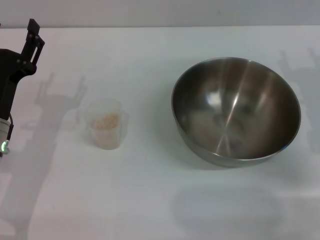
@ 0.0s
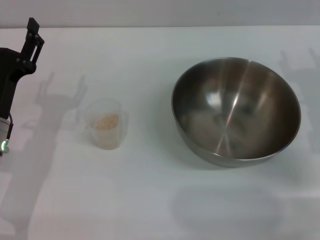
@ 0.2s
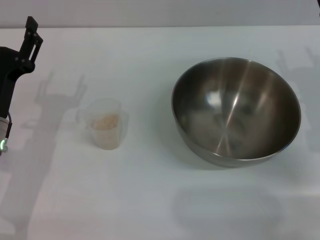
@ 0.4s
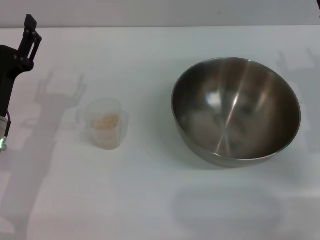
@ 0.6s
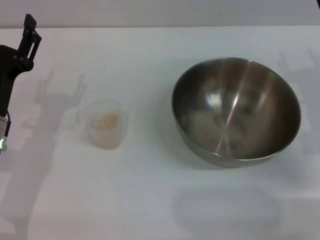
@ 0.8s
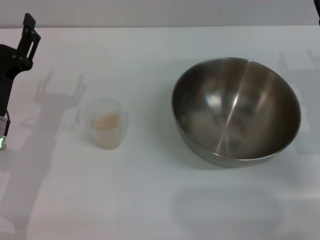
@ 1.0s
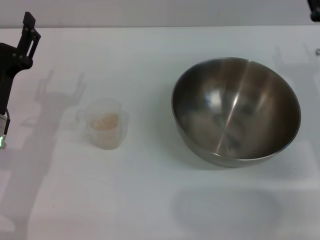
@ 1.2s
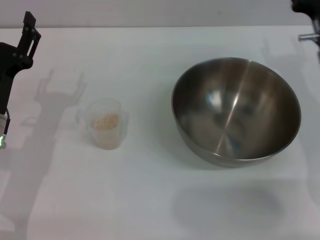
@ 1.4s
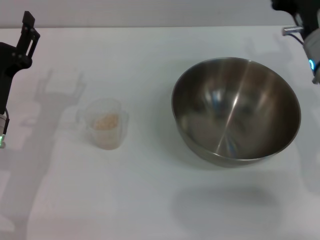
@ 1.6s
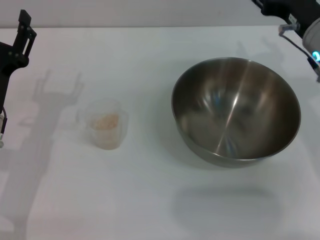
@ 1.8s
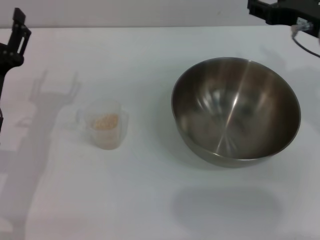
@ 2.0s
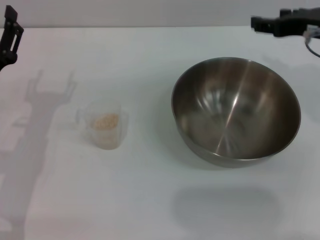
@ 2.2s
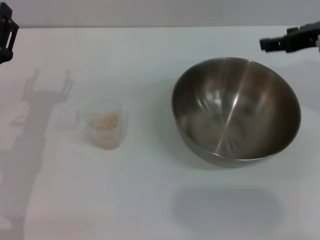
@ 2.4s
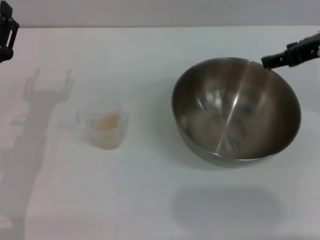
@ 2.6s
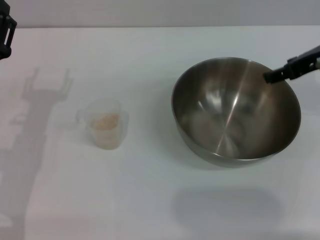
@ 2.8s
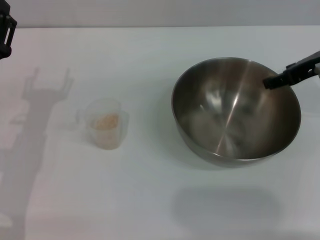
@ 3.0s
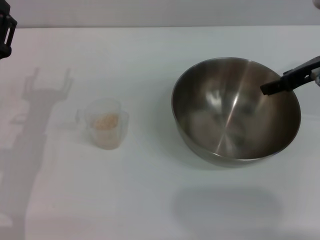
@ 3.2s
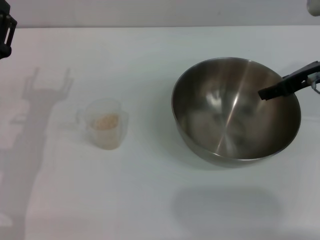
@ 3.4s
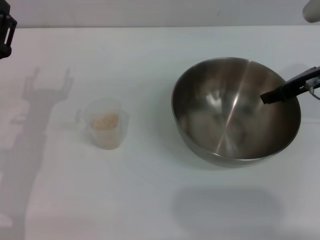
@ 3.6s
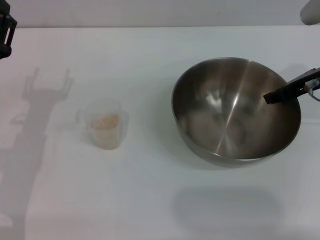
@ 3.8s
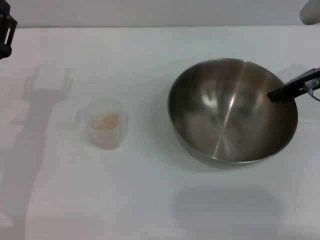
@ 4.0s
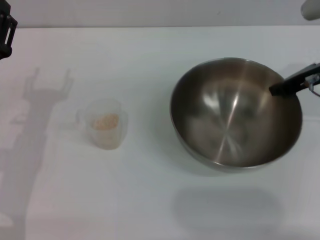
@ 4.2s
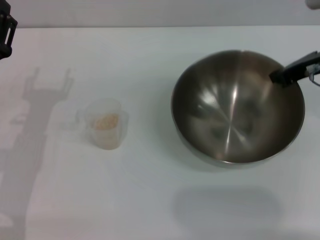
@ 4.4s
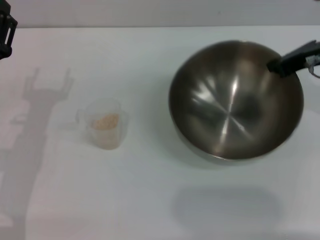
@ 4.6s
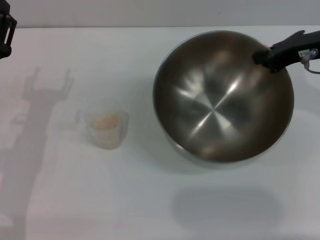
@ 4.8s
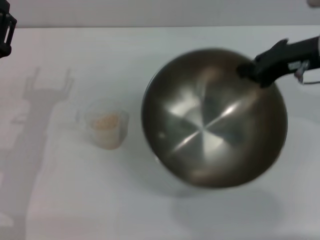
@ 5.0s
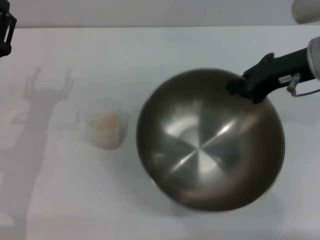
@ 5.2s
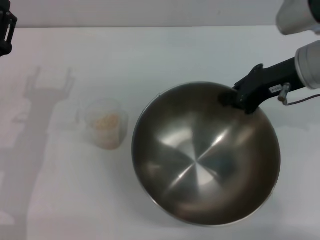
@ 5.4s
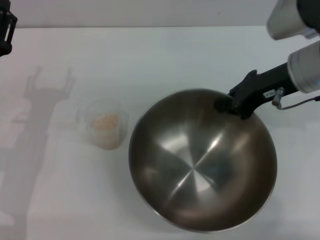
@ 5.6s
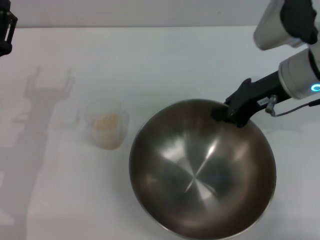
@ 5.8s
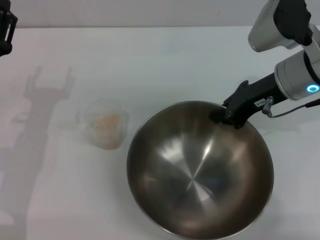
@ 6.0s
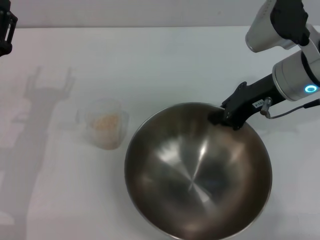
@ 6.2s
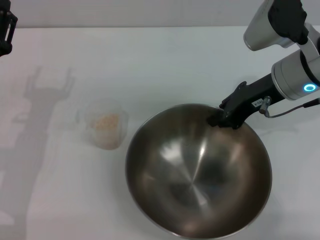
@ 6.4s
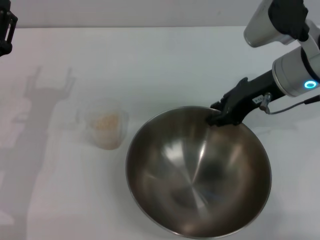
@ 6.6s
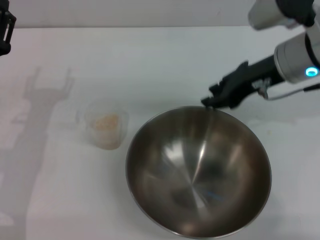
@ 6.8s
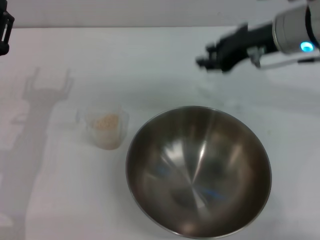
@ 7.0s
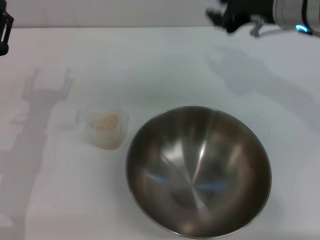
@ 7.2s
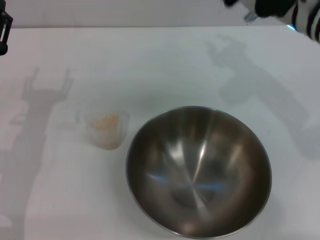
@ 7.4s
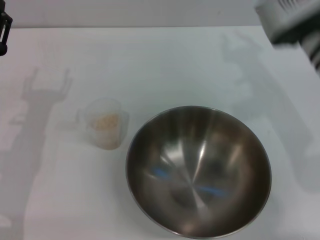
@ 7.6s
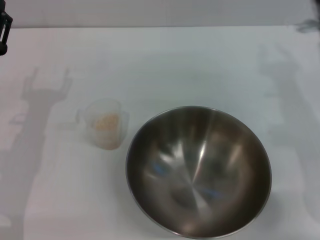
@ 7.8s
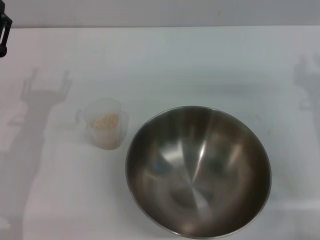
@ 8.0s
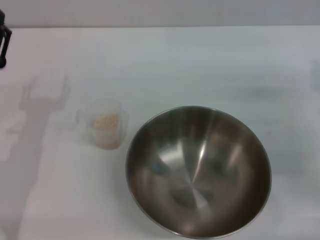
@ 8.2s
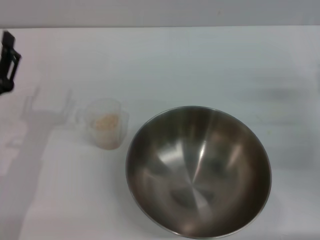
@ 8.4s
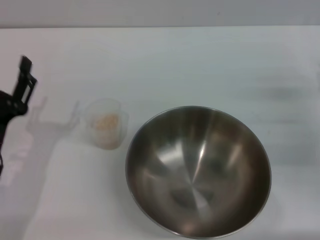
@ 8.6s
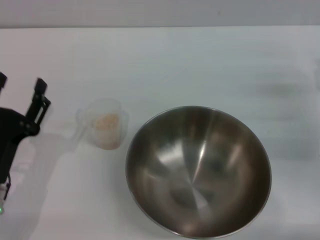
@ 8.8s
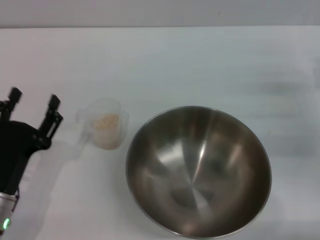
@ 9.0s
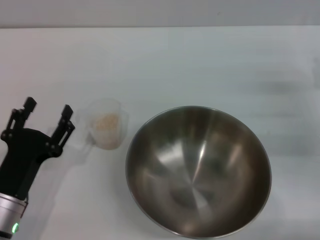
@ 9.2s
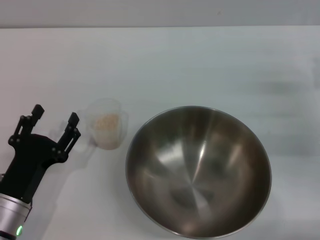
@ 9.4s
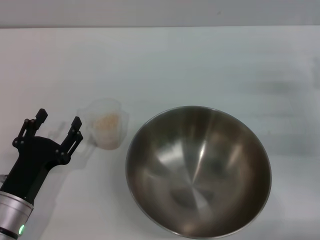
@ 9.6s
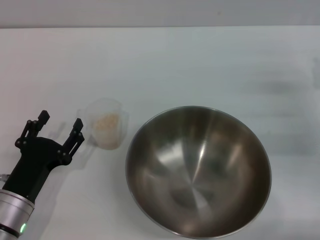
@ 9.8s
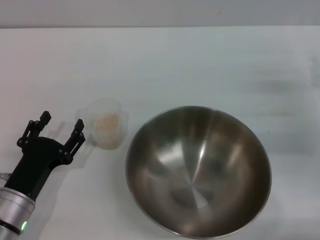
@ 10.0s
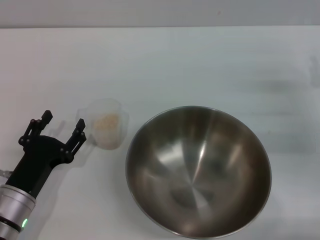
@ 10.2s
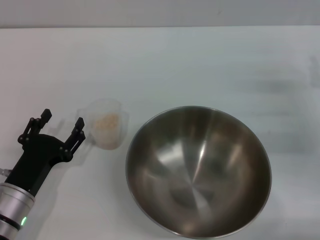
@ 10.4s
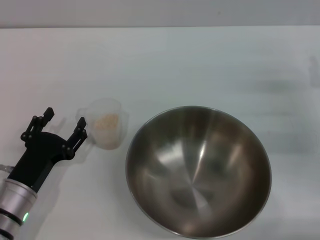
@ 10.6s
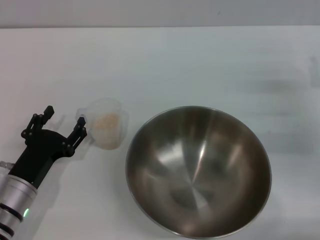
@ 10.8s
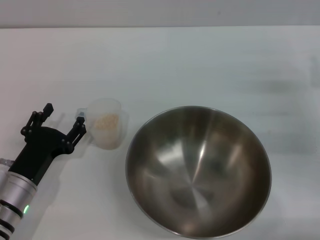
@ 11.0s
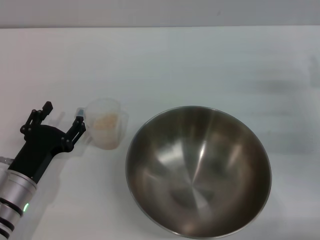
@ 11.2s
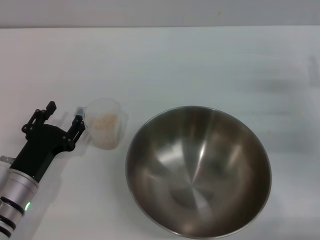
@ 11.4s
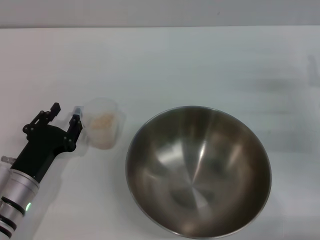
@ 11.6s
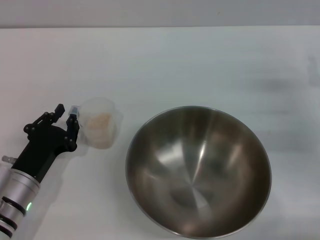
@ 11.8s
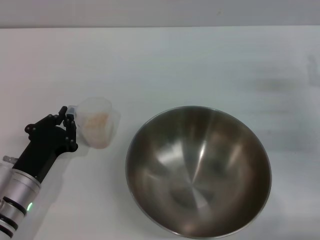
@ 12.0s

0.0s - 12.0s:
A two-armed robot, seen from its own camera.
Task of the whole recording: Place the bowl in the middle of the table with one hand and pour the rice from the grain cup into it with the other hand.
Step, 0.0s - 4.6s: Pick up the bowl with the right gripper.
Step, 4.8s - 6.8s: Place the bowl in the center of view with the right gripper.
0.0s - 1.6s: The right gripper is displaced to the left by approximately 5 cm.
1.6s - 3.0s: The right gripper is displaced upward by some 5 cm.
3.0s - 4.4s: The right gripper closes up.
4.4s - 6.0s: The right gripper moves to the left, about 5 cm.
6.0s - 7.6s: The right gripper opens its fingers.
7.6s - 9.0s: The right gripper shifts roughly 20 cm to the right and downward. The left gripper shifts some 10 cm backward and downward.
9.0s - 10.4s: The grippers make only small movements.
10.4s - 12.0s: The left gripper closes.

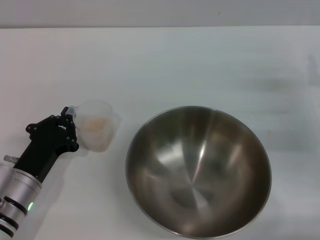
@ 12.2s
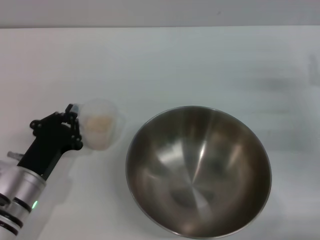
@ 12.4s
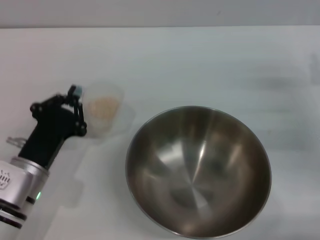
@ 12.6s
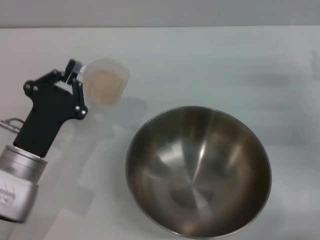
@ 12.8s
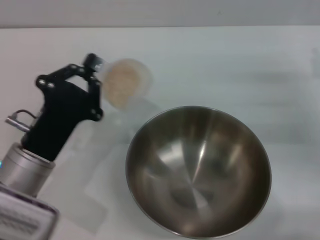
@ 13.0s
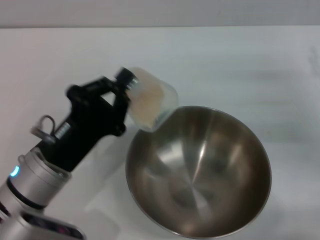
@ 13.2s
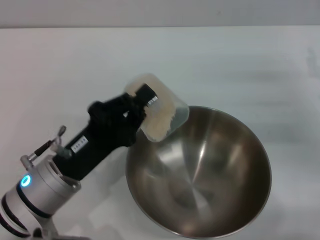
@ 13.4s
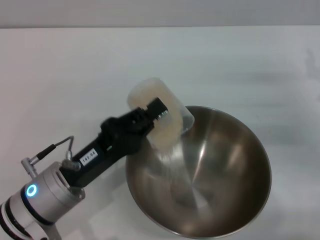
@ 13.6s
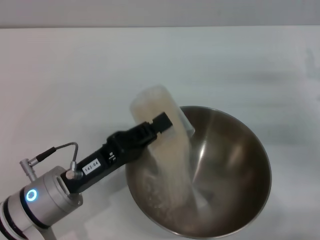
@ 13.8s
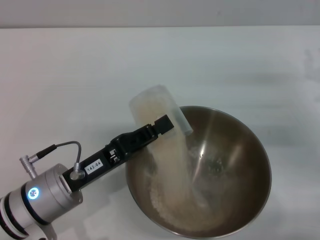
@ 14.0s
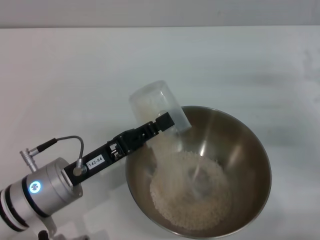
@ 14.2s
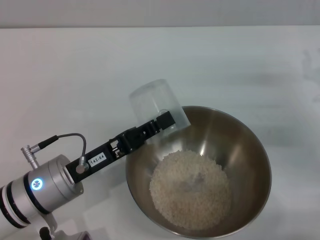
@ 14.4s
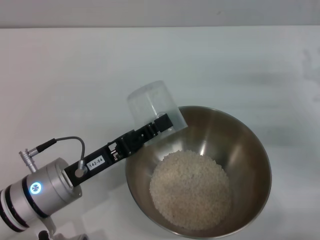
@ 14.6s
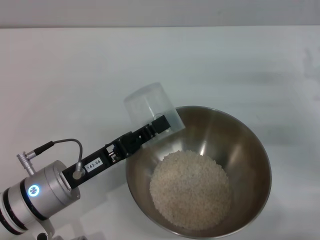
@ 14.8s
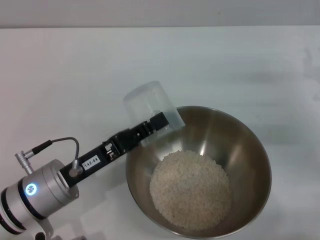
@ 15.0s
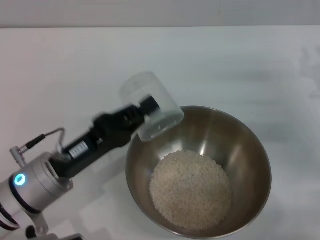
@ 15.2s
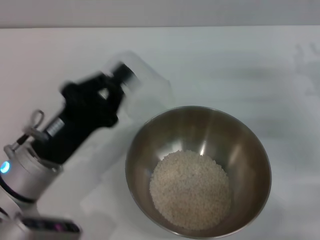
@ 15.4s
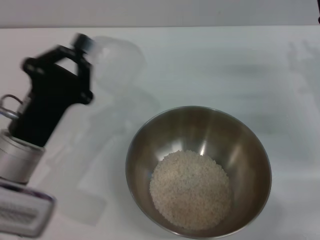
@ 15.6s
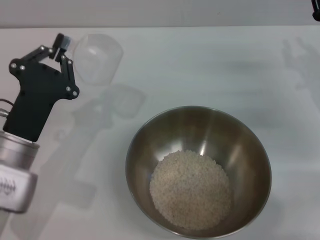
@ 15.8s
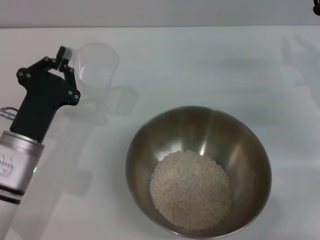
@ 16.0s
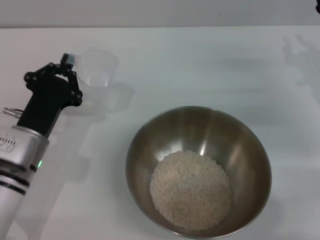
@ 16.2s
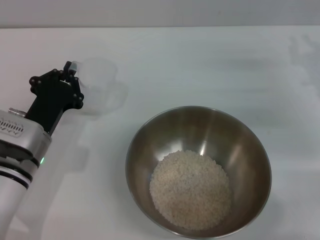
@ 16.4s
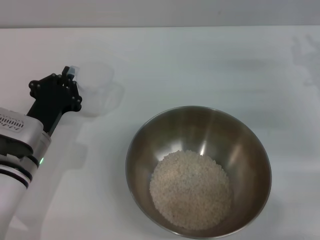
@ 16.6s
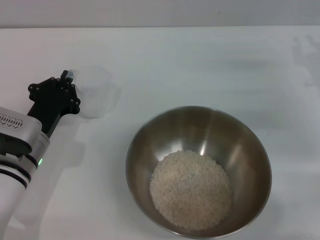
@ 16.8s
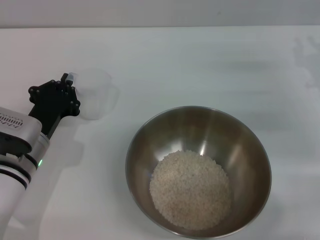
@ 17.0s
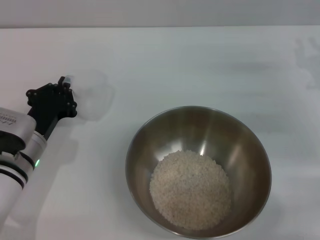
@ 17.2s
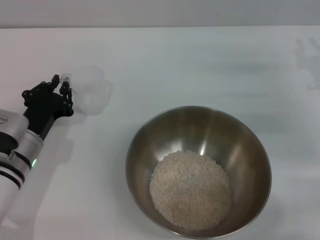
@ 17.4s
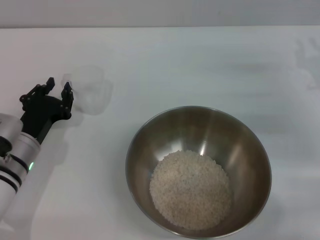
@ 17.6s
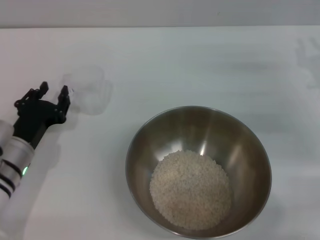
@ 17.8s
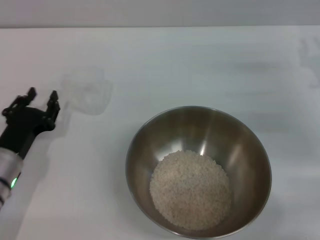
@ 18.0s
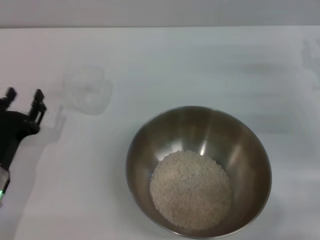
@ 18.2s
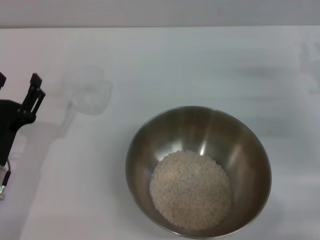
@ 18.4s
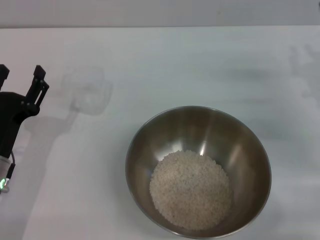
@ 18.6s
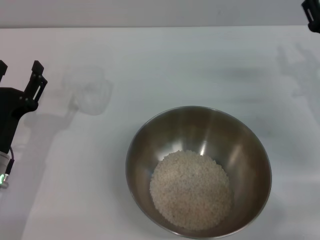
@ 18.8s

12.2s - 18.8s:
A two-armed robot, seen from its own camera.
Task of the whole recording: Place the bowl in the middle of the table with one hand and pour the rice from the grain cup into it with the other hand.
Step, 13.0s - 14.4s: Pour the rice from the cup into the bowl with the left gripper.
Step, 14.8s - 17.8s: Place the cup on the table with the left gripper.
12.2s - 13.8s: The left gripper is displaced to the right and upward by some 10 cm.
15.4s - 17.2s: The left gripper travels forward and downward by approximately 10 cm.
17.2s - 18.8s: The left gripper shifts by approximately 5 cm, and opens.

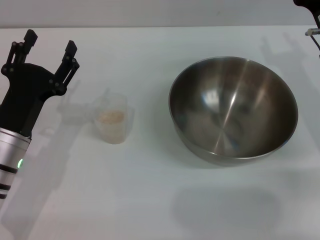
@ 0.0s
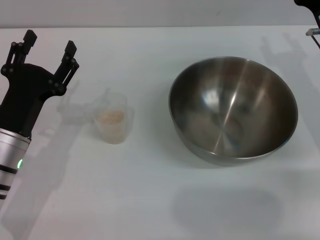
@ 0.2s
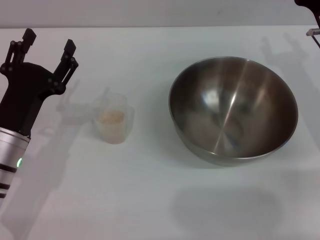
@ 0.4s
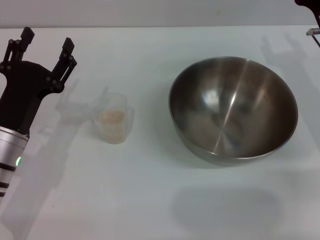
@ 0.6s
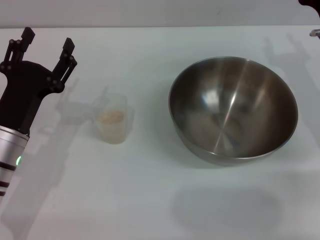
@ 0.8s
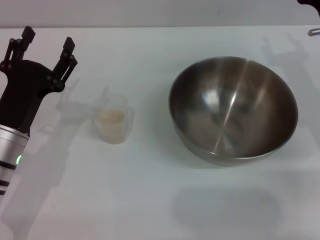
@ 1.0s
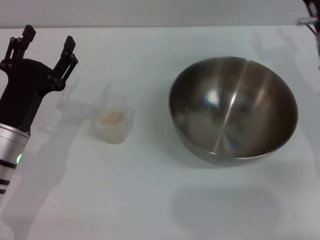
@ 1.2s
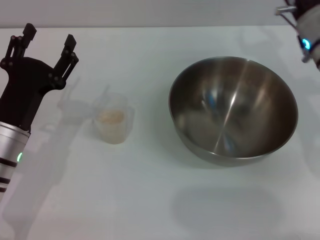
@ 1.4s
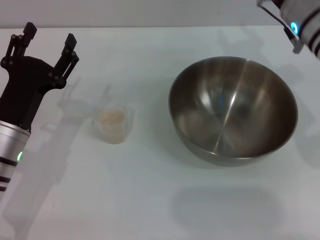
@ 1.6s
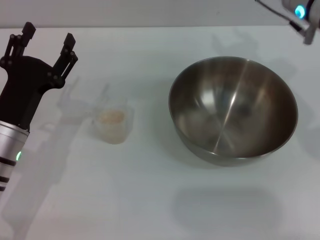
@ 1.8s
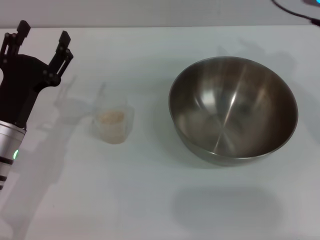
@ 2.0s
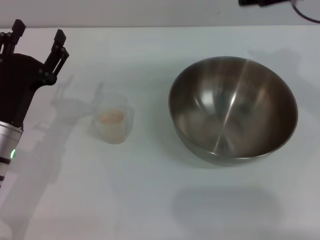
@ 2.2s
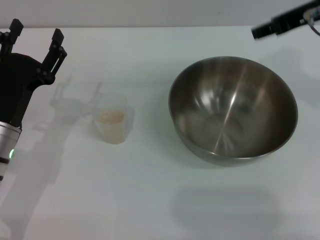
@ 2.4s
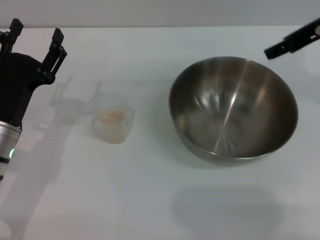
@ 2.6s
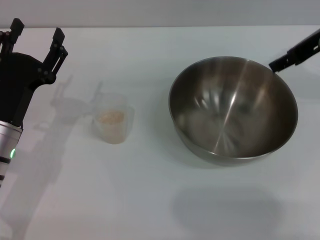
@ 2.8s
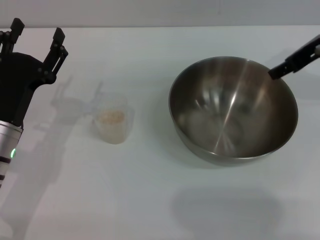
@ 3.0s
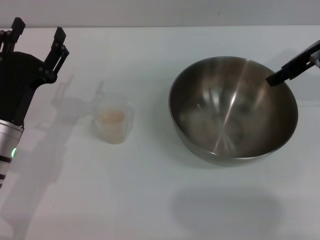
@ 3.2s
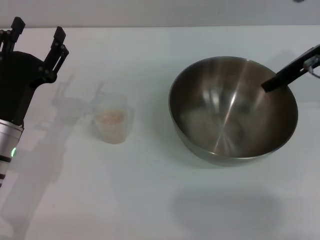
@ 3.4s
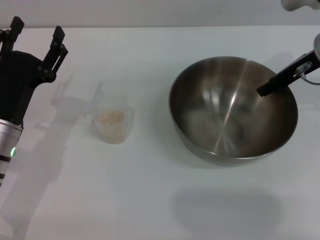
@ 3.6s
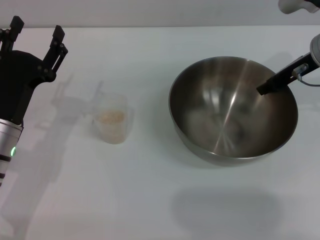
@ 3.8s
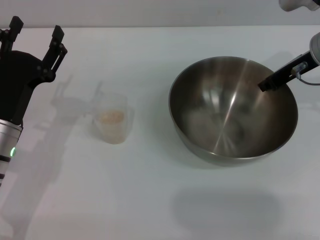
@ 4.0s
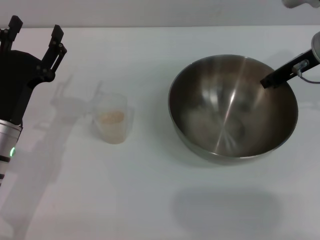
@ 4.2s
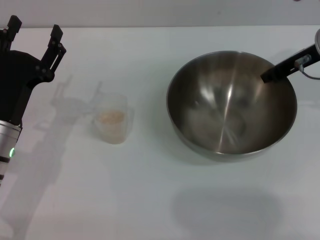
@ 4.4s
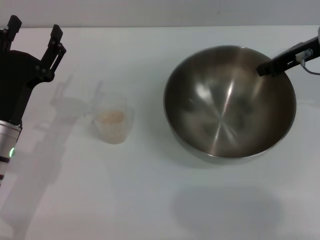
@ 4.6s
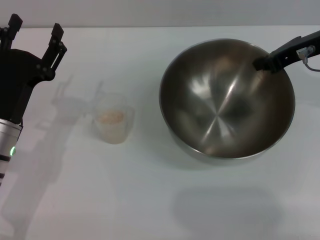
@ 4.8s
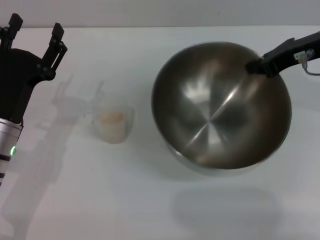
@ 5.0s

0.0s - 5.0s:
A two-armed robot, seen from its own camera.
Task of the whole recording: Place the bowl in the middle of the table with one hand and pour the rice from the grain cup into it with the other hand.
Step, 0.0s - 4.8s: Pick up the bowl with the right gripper.
0.0s - 1.6s: The right gripper travels upward and to the left by approximately 10 cm.
1.6s - 3.4s: The right gripper moves to the right, approximately 5 cm, and goes upward and returns, roughly 10 cm each way.
3.4s - 5.0s: The right gripper closes its fingers.
